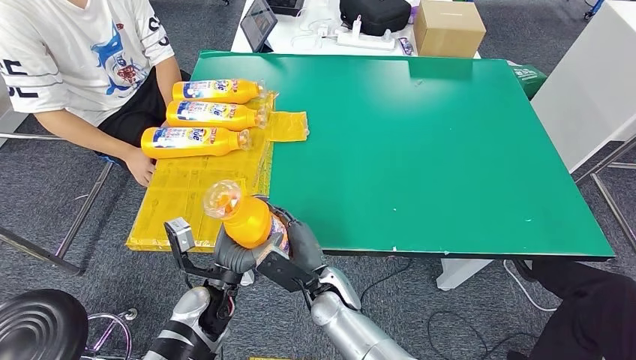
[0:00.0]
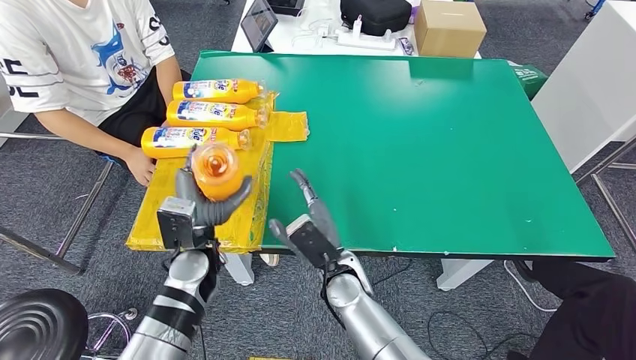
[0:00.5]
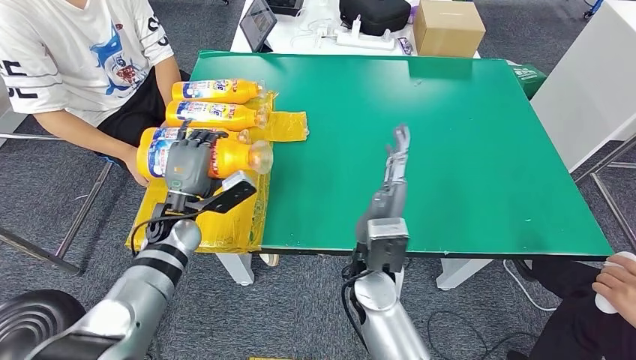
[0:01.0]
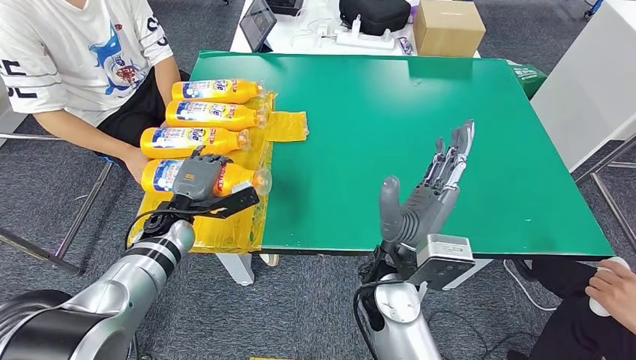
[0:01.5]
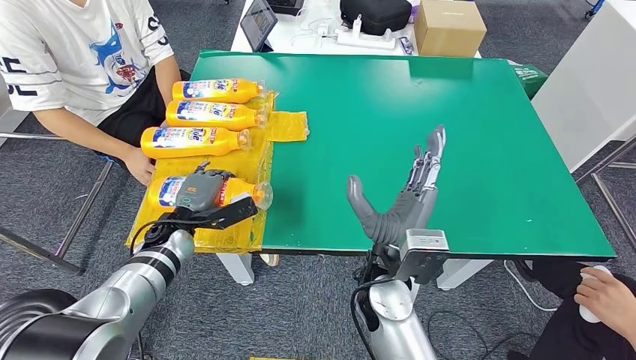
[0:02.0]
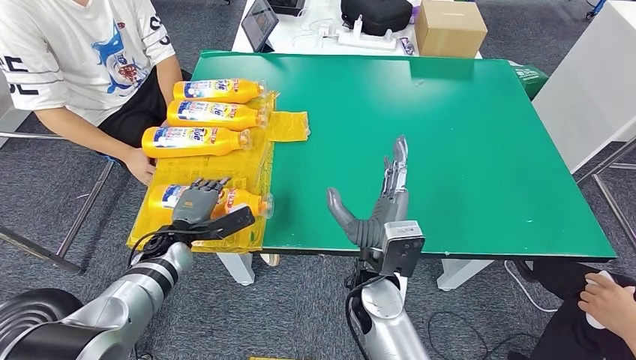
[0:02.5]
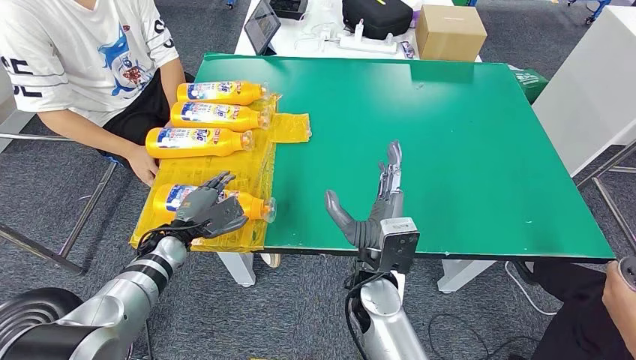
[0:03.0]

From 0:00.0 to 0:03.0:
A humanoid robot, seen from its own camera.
Step, from 0:00.0 to 0:03.0: Flip the bottle to face forward.

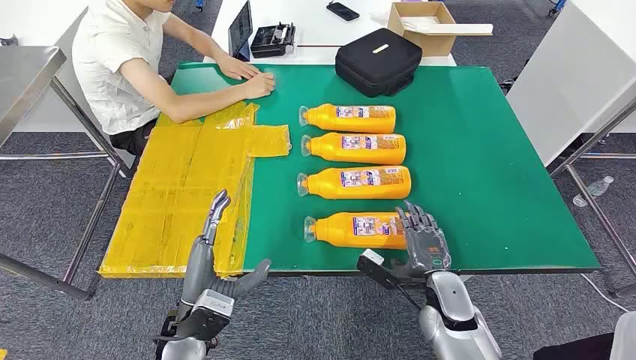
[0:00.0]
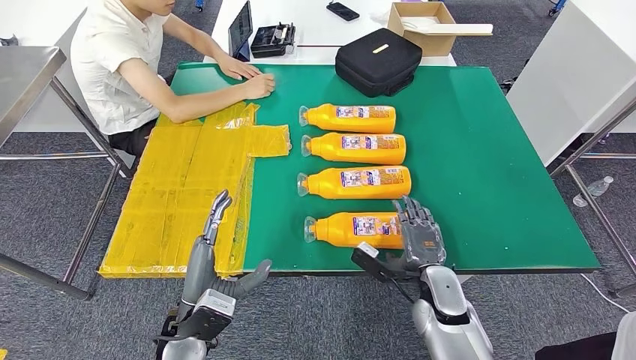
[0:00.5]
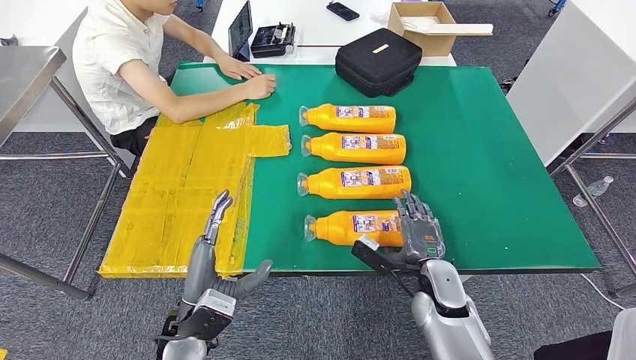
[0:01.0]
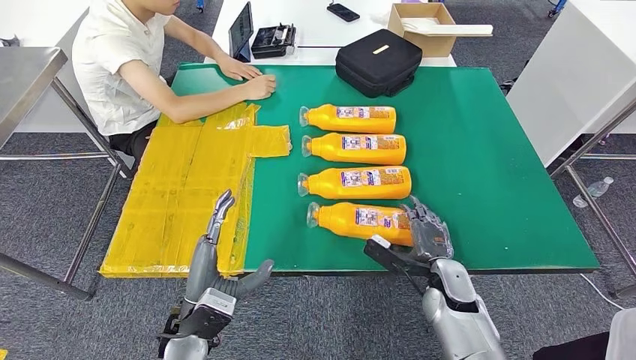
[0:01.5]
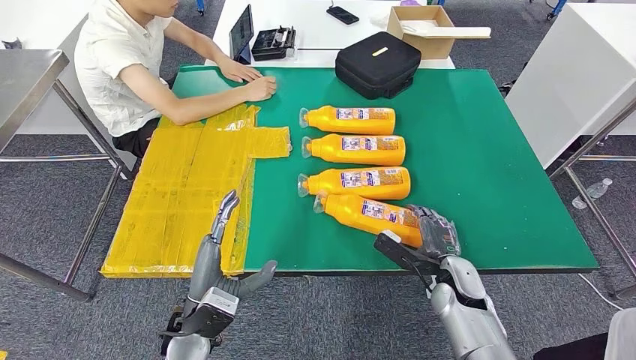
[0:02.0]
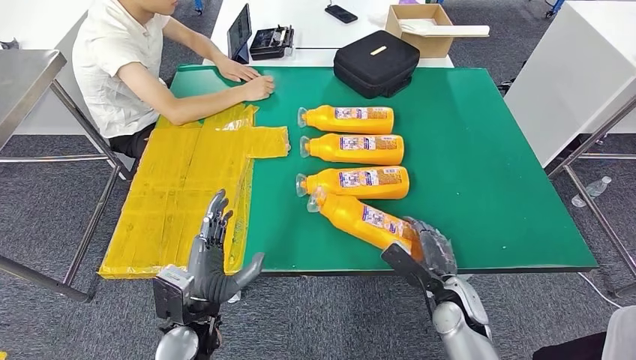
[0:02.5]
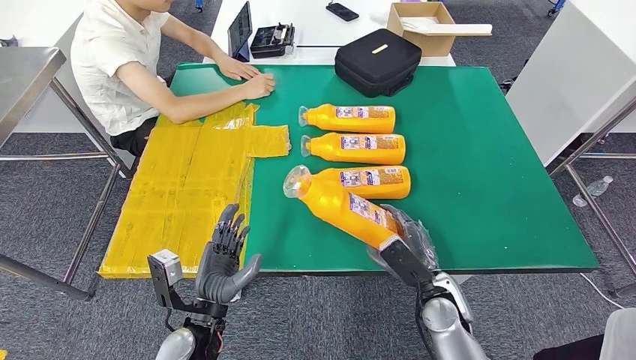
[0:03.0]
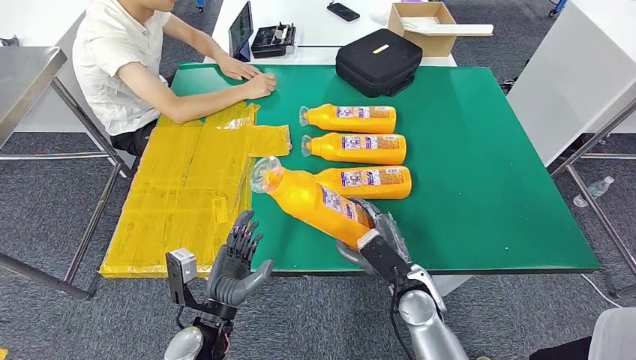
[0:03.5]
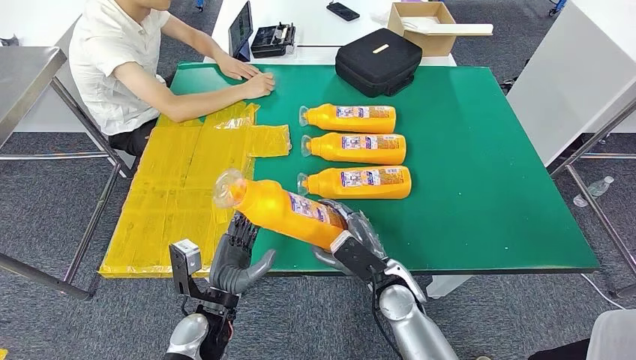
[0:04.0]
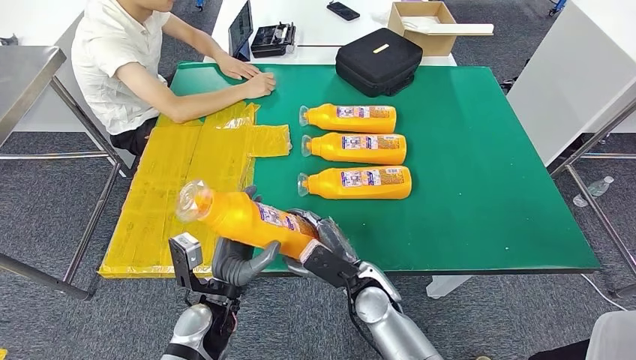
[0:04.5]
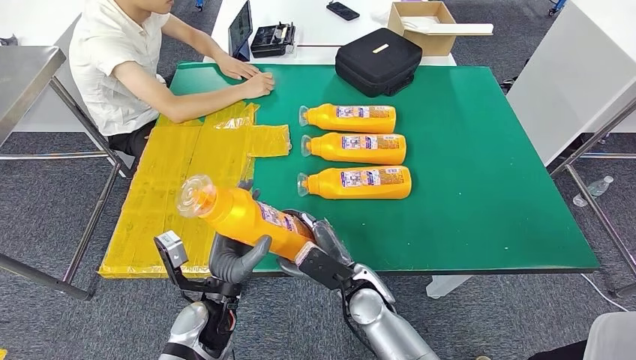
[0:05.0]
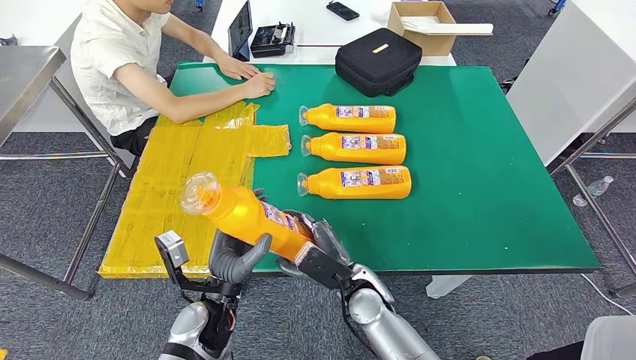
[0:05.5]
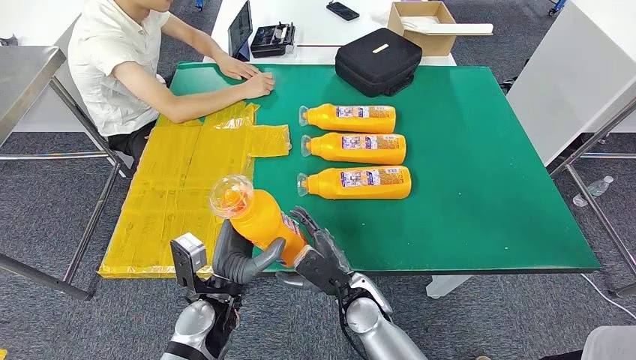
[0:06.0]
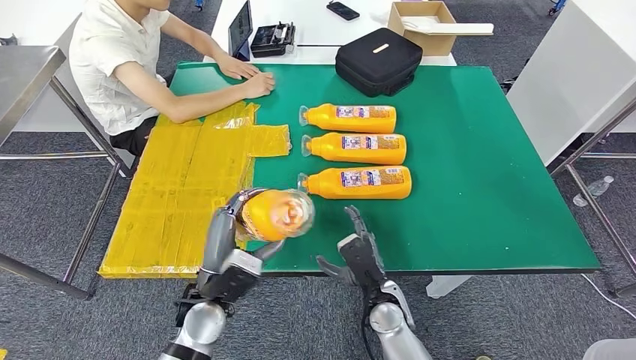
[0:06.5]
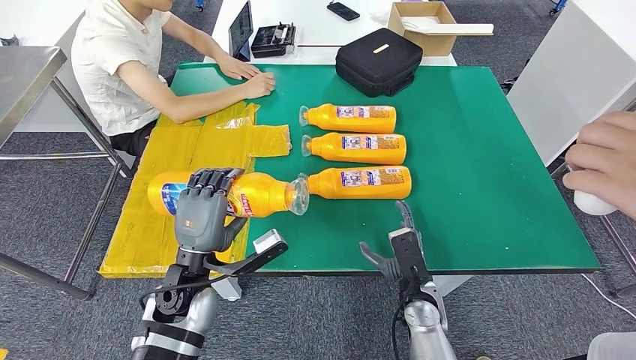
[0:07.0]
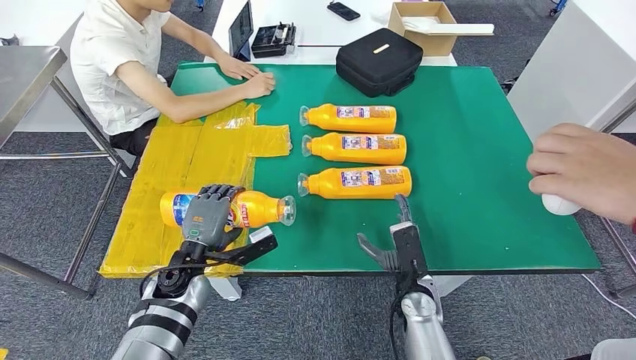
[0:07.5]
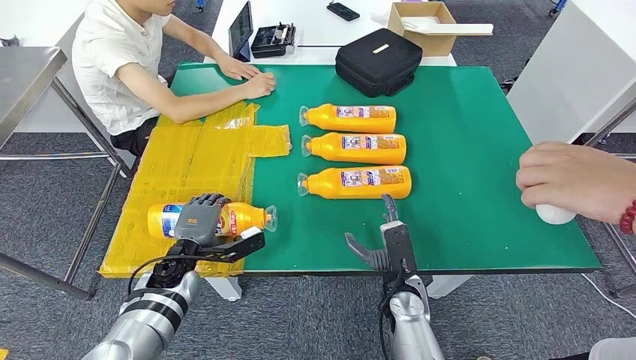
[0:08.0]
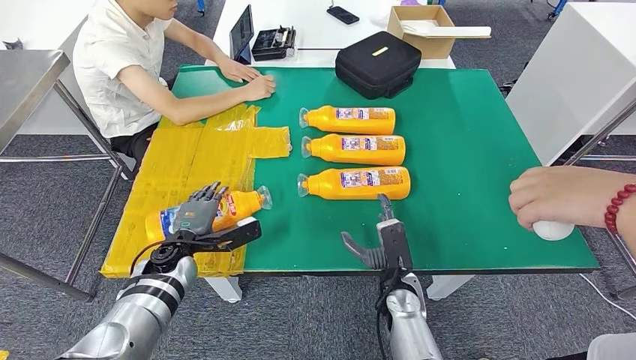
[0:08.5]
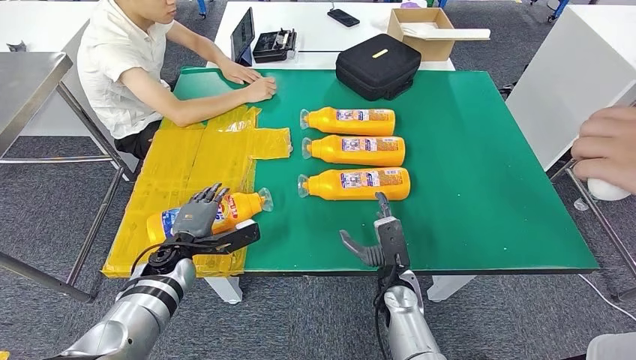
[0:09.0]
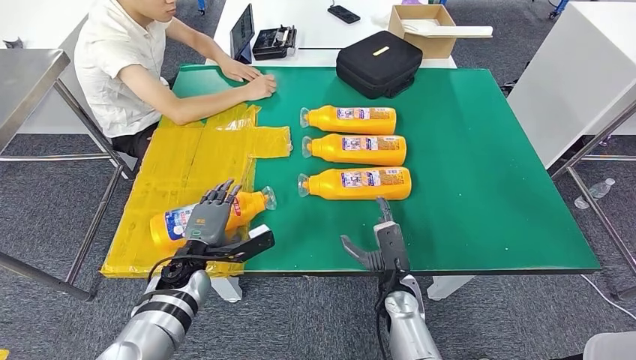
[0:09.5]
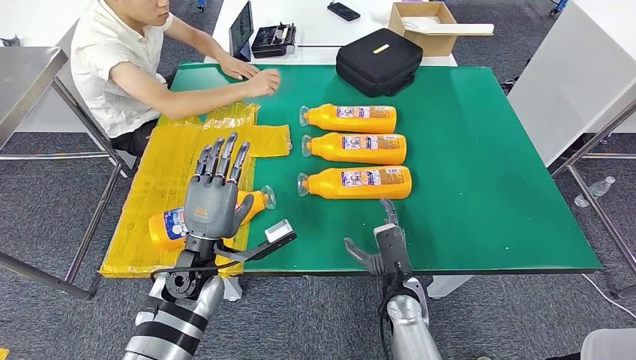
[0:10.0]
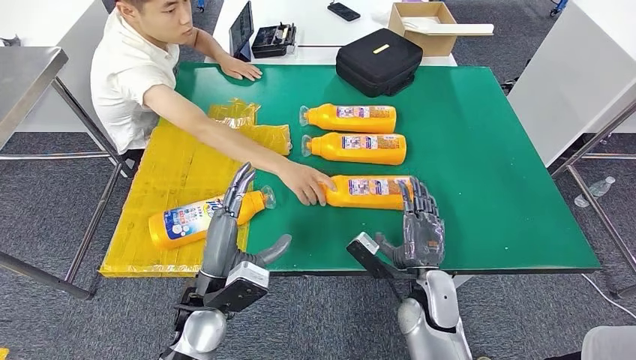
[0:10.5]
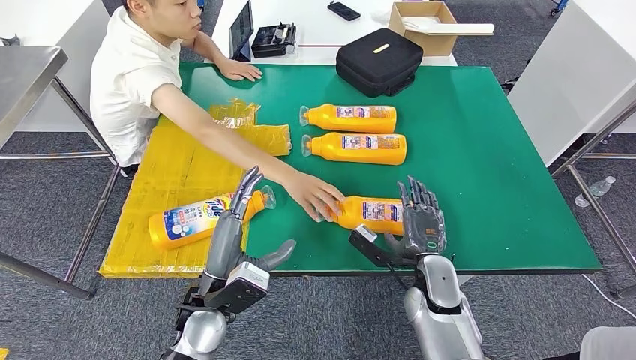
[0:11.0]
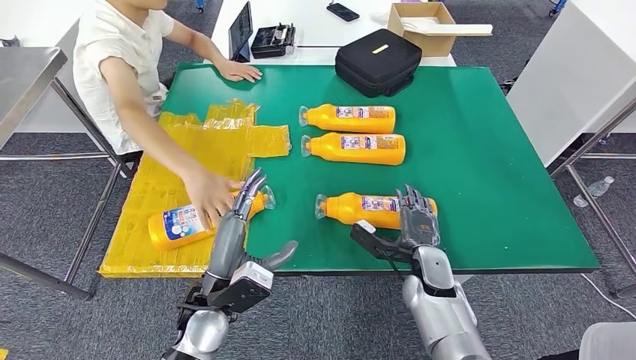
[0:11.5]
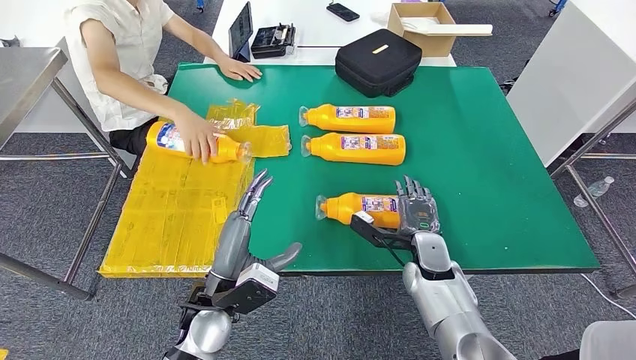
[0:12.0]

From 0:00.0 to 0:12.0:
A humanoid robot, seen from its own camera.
Step, from 0:00.0 to 0:04.0: Take the bottle from the table.
Step, from 0:04.5 to 0:09.5: Flip the bottle to face forward.
From 0:04.0 to 0:06.0: The right hand heads to the left, covering about 5 cm.
From 0:06.0 to 0:08.0: The left hand shifts some 15 cm to the left and forward; the right hand shifts roughly 10 cm to the right.
From 0:08.0 to 0:10.0: The left hand is displaced upward and to the right by about 10 cm.

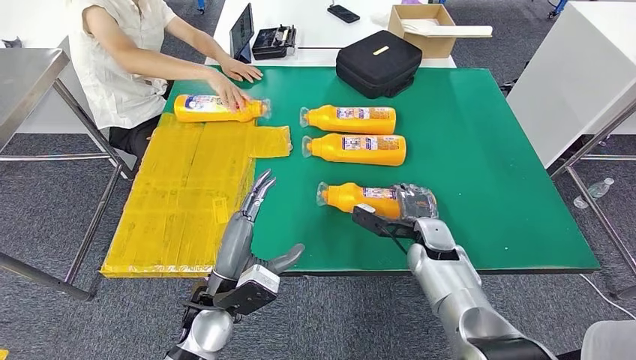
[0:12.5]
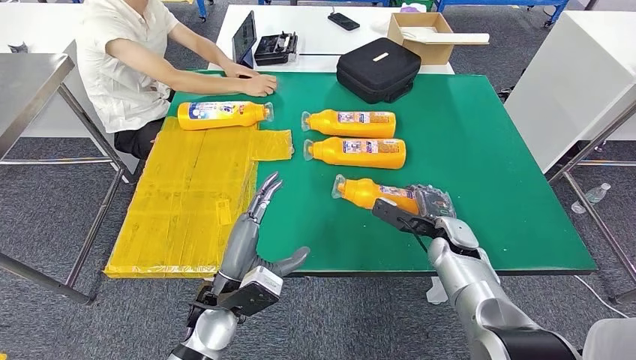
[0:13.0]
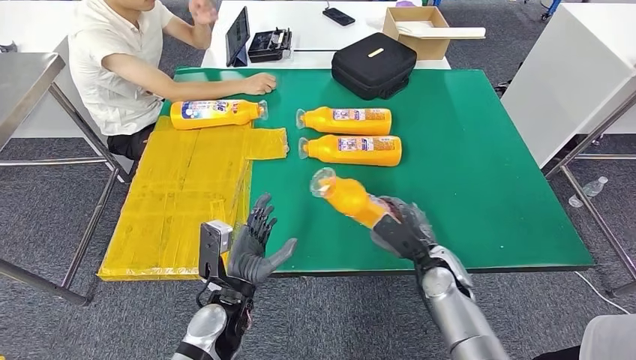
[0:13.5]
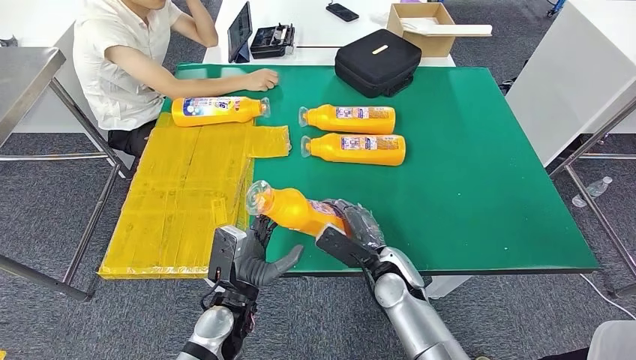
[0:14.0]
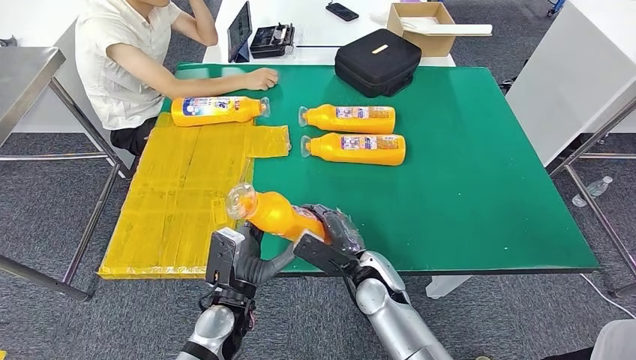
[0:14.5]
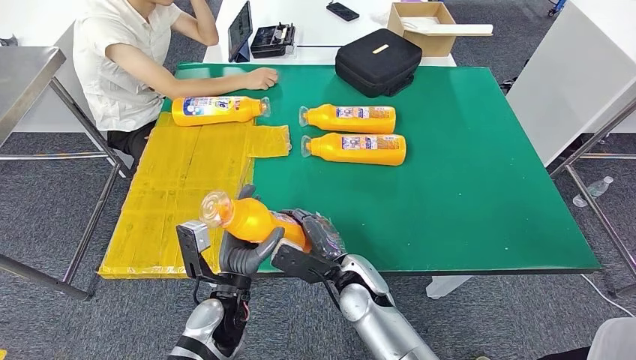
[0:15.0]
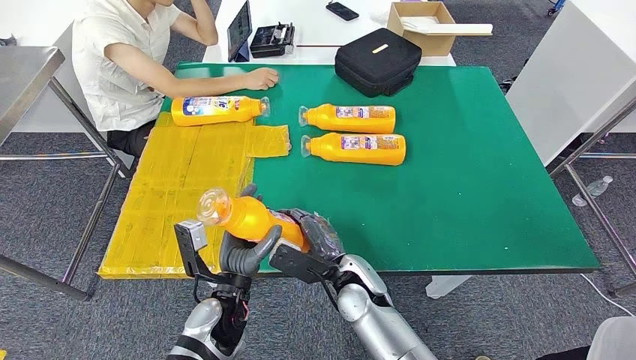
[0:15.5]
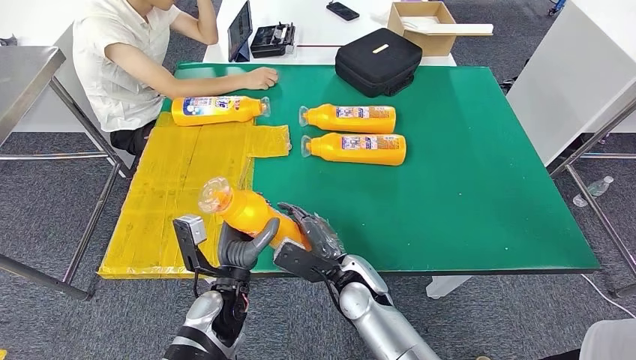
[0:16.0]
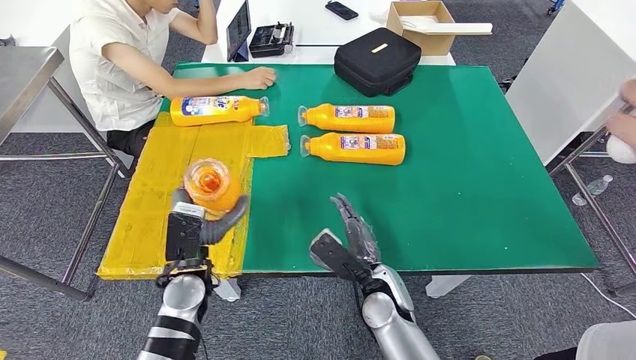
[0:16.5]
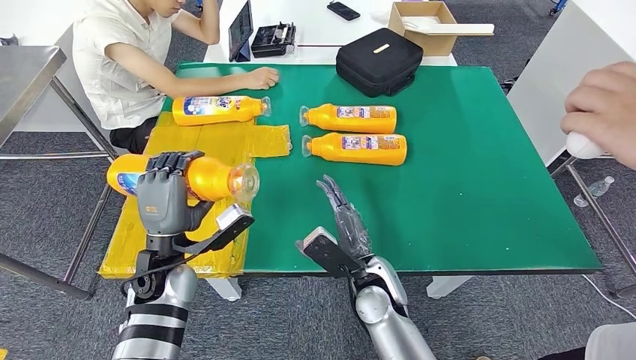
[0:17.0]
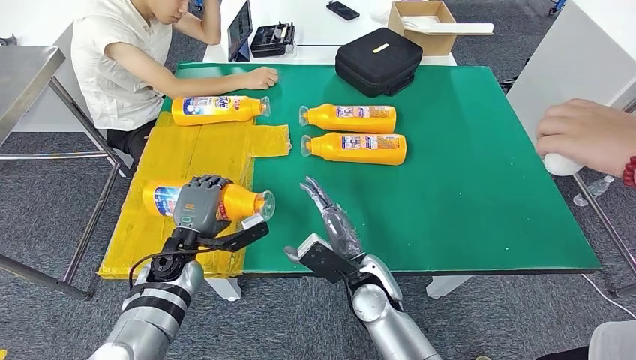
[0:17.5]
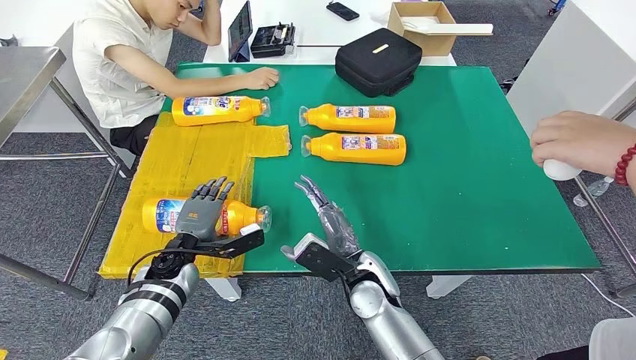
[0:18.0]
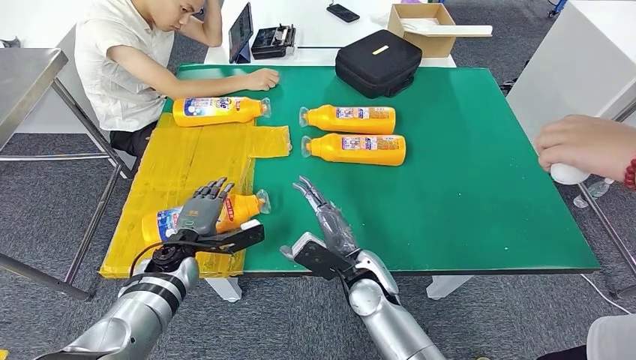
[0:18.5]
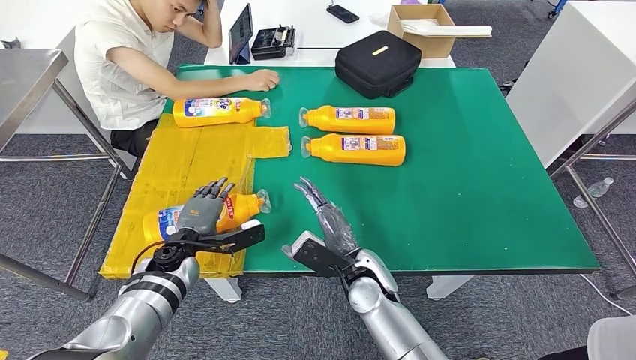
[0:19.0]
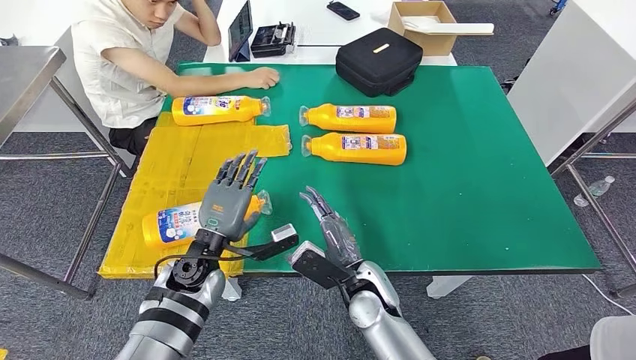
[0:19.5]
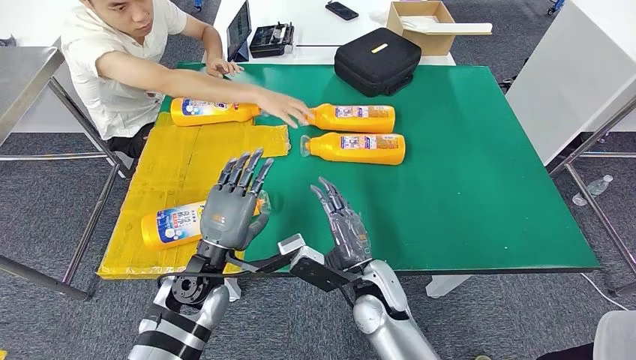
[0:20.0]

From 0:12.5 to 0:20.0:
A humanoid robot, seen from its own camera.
Step, from 0:12.5 to 0:15.5: Pick up the bottle from the table.
Step, from 0:16.0 to 0:19.5: Flip the bottle to face forward.
From 0:14.5 to 0:16.5: The left hand heads to the left and forward, covering approximately 10 cm.
From 0:16.5 to 0:18.0: The left hand shifts about 10 cm forward, to the left and downward.
